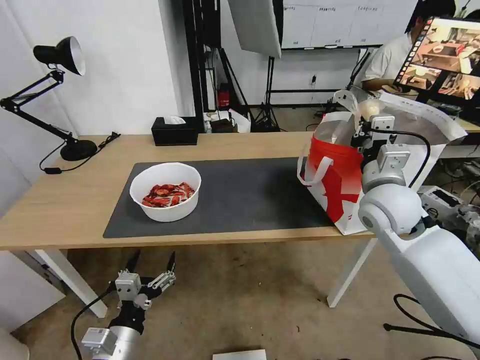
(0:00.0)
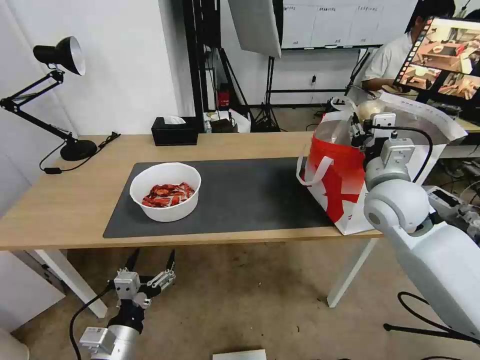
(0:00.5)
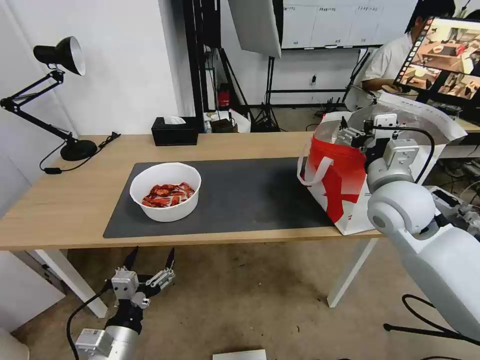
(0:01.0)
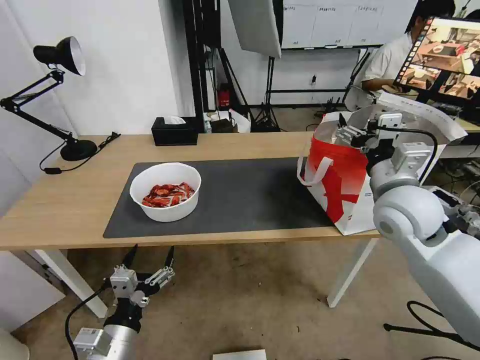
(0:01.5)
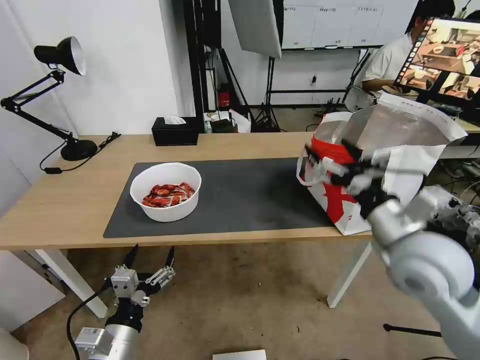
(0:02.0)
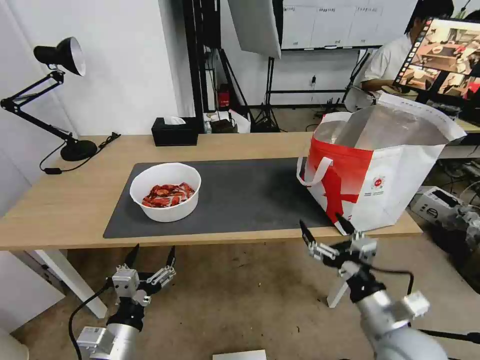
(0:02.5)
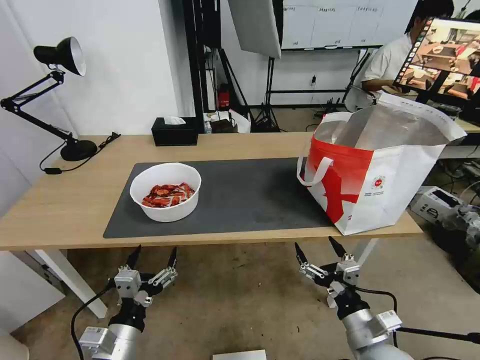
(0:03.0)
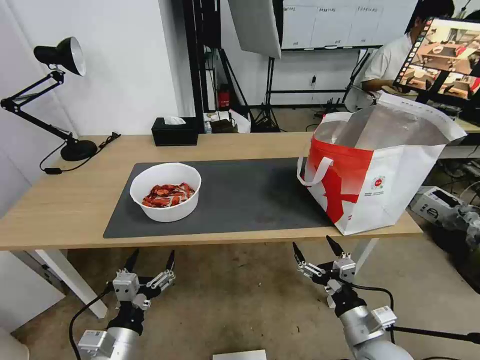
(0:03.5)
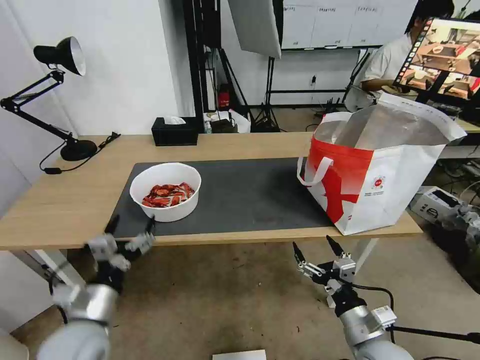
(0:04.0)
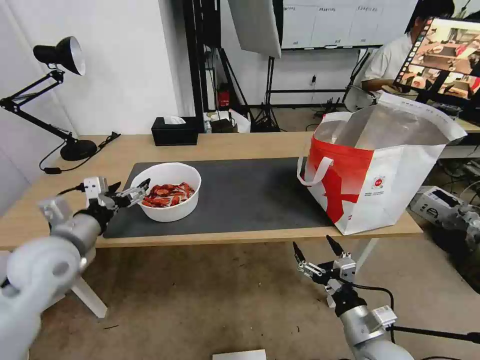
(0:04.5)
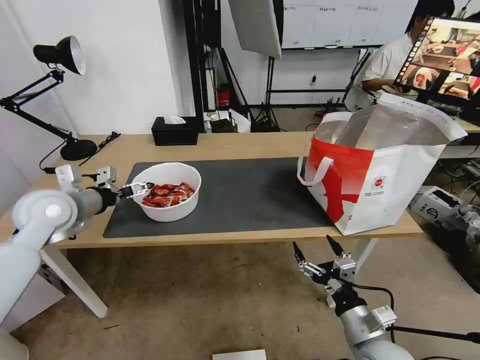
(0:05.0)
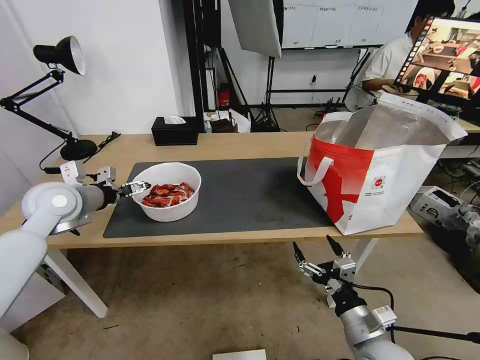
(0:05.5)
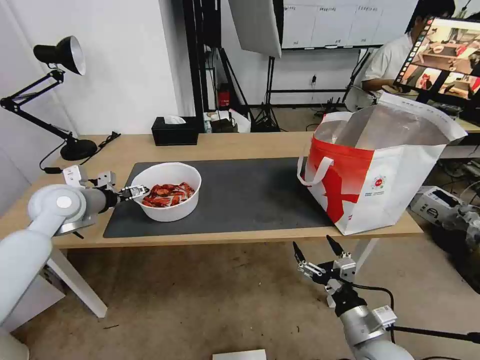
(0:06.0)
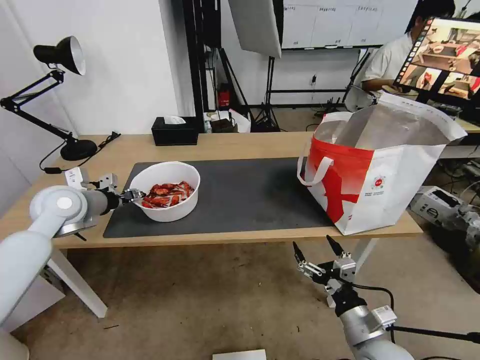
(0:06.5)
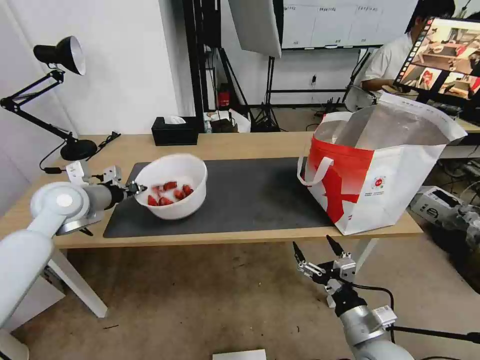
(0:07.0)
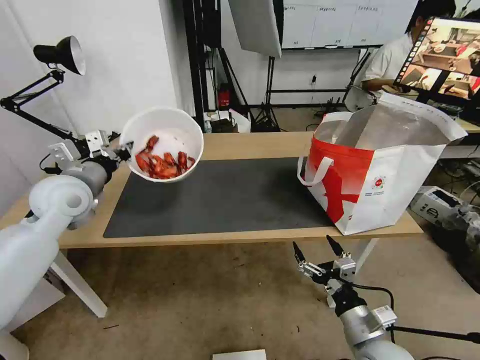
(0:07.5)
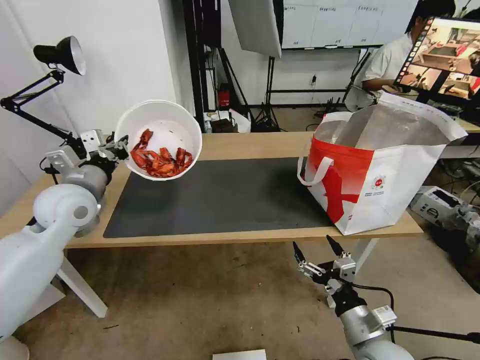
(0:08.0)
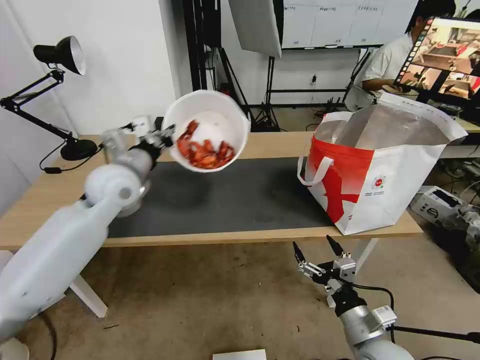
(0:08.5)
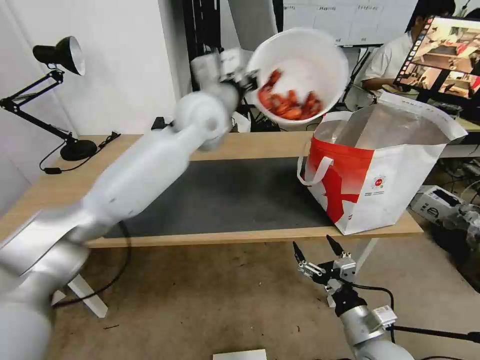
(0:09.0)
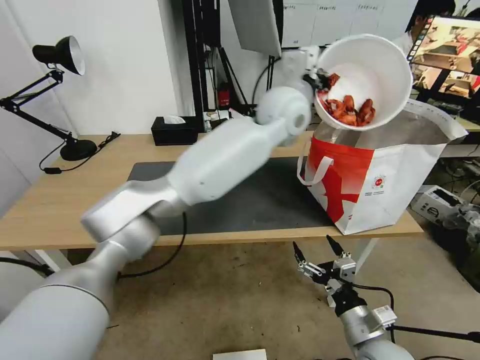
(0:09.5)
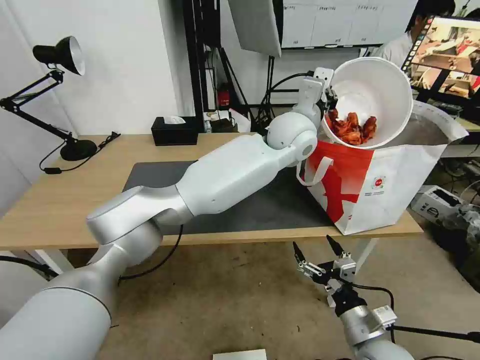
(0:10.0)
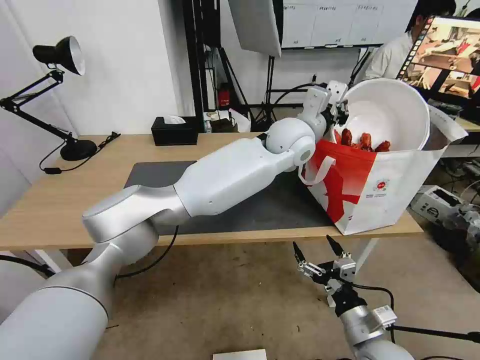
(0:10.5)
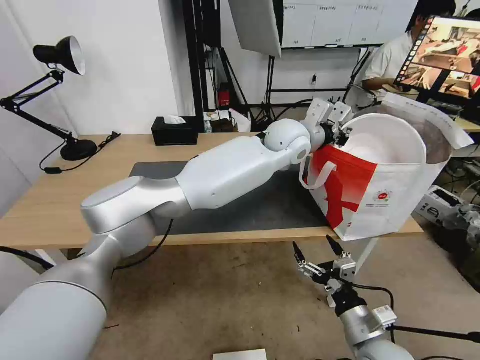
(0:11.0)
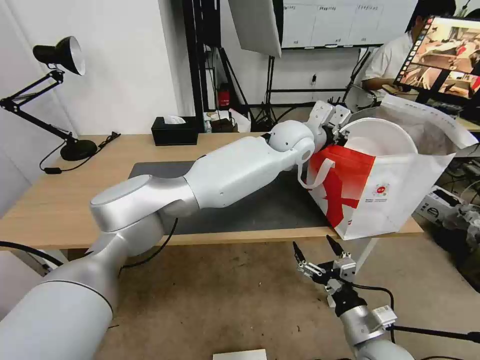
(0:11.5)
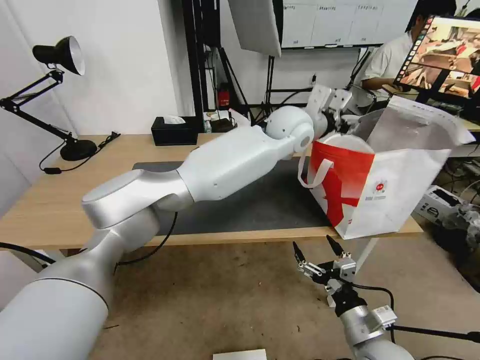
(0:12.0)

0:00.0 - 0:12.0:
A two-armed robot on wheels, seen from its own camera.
Task of the whole recording: Pick up the trash from the table and place it into the takeout bag.
0:00.0 - 0:02.0: The right gripper shifts about 10 cm backward, and opens its fingers.
0:02.0 - 0:04.0: The left gripper heads forward, covering roughly 5 cm; the right gripper goes about 25 cm downward and backward.
0:04.0 - 0:06.0: The left gripper shifts about 30 cm forward, upward and to the left.
0:06.0 - 0:08.0: The left gripper moves about 5 cm, and closes.
0:08.0 - 0:10.0: The left gripper shifts roughly 40 cm to the right.
0:10.0 - 0:12.0: The left gripper opens its fingers.

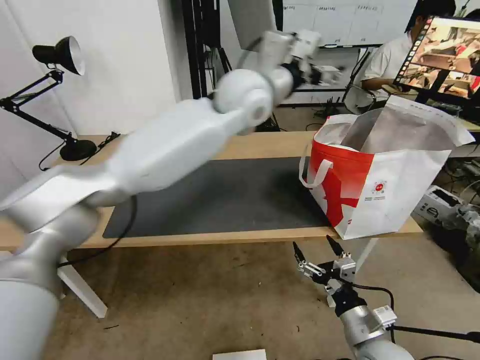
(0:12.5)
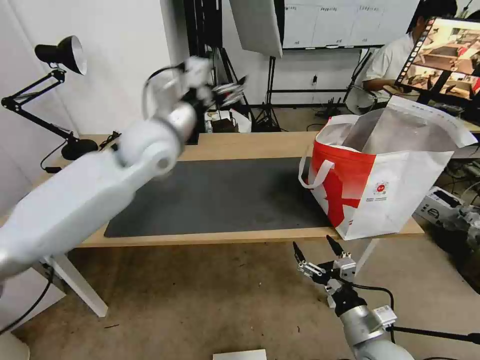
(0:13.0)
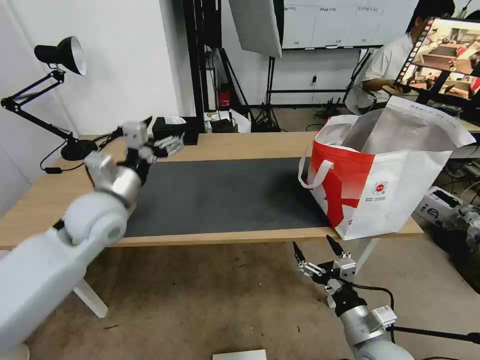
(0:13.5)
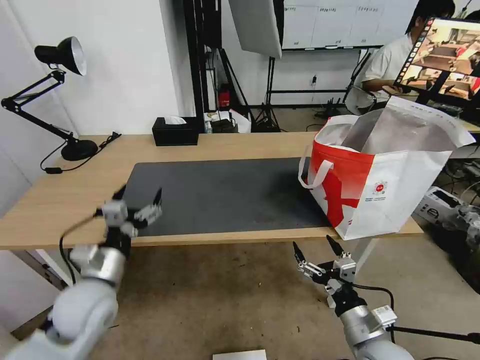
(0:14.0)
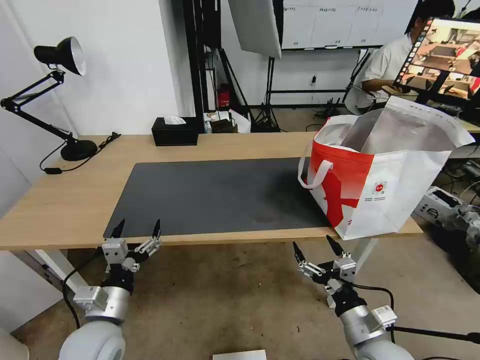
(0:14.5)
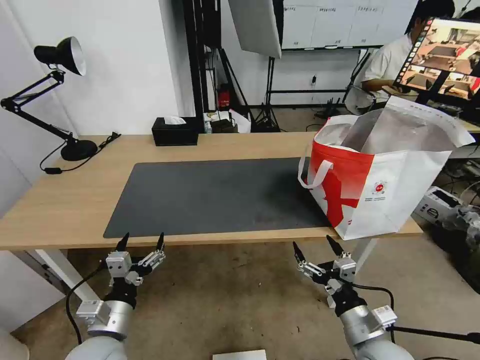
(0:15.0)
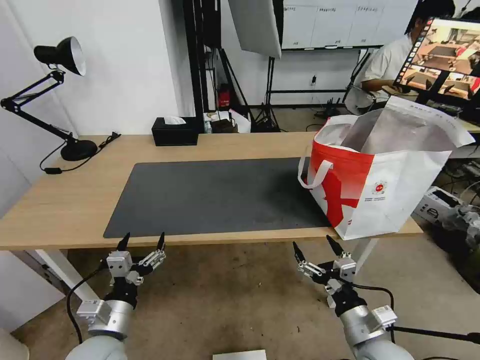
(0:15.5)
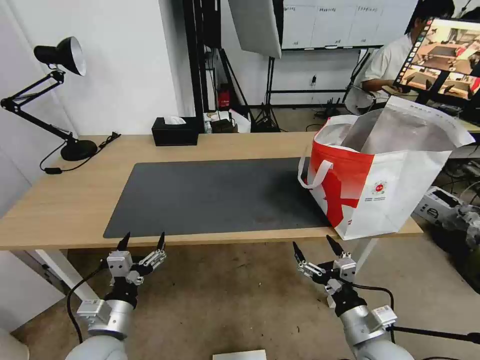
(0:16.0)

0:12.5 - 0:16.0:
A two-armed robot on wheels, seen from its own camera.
Task of the whole recording: Pick up the trash from the table and place it into the takeout bag.
0:12.5 - 0:14.5: The left gripper travels downward, backward and to the left by approximately 50 cm.
0:14.5 - 0:16.0: The grippers stay close to where they were, moving slightly.

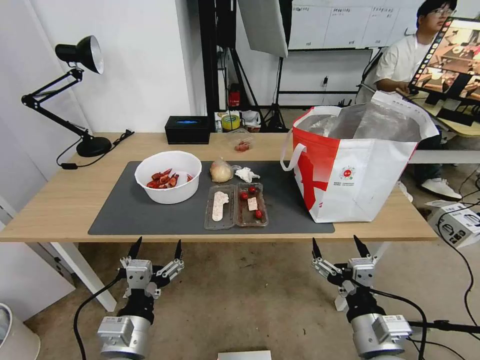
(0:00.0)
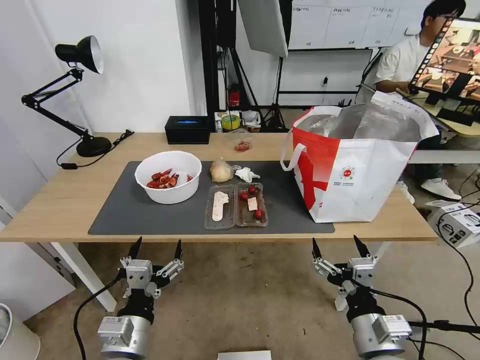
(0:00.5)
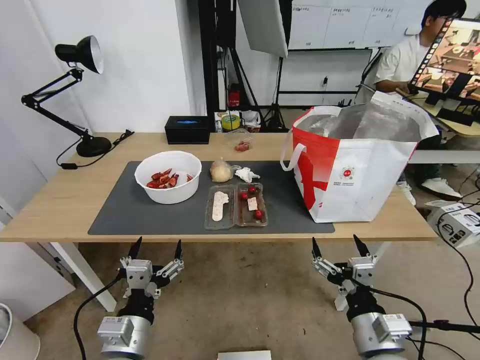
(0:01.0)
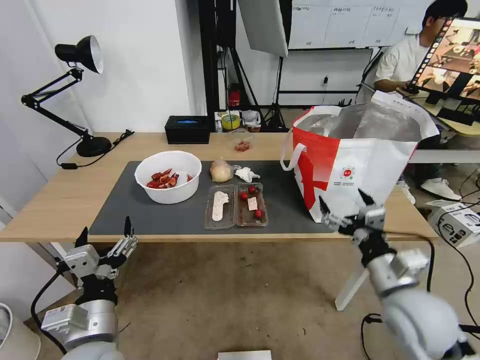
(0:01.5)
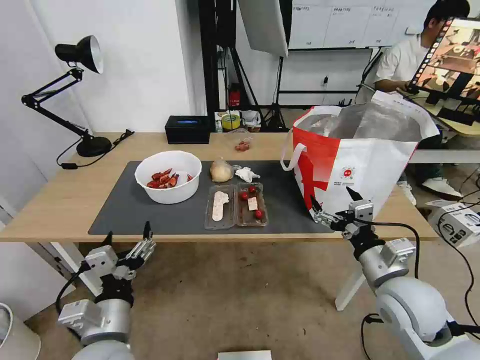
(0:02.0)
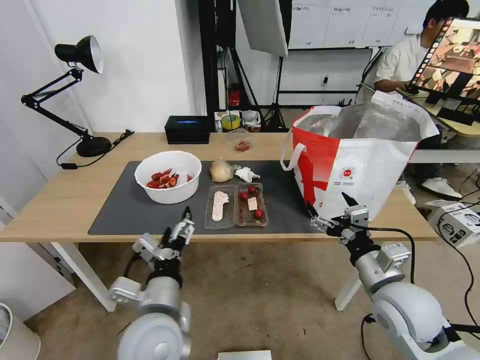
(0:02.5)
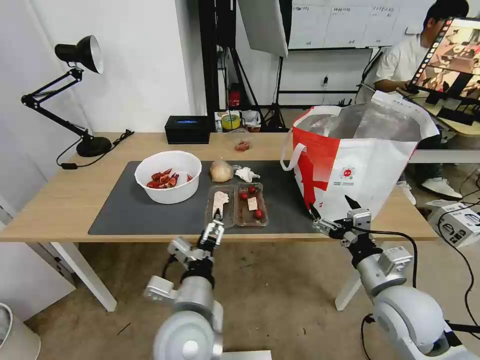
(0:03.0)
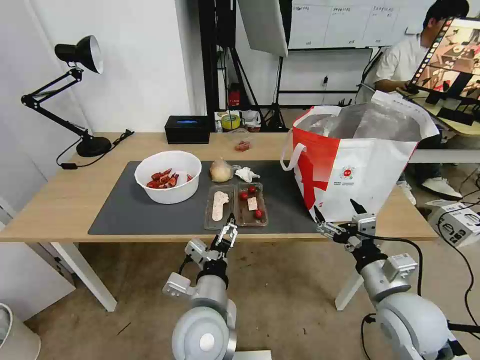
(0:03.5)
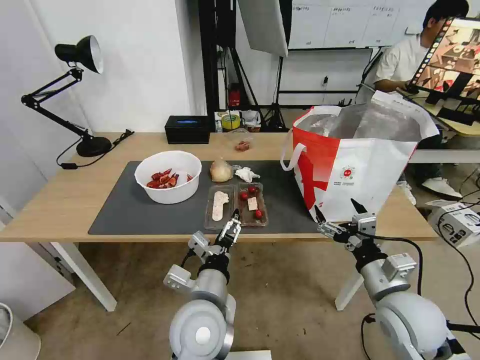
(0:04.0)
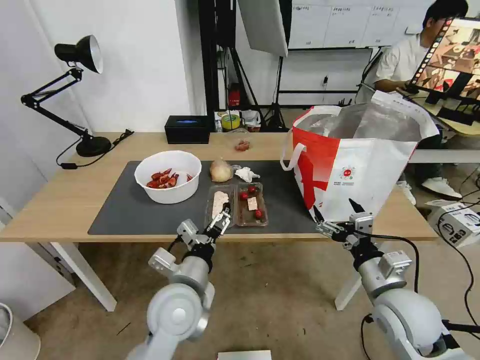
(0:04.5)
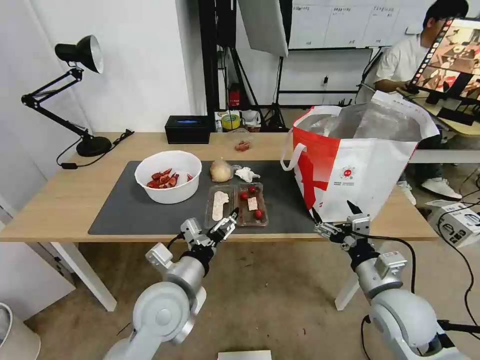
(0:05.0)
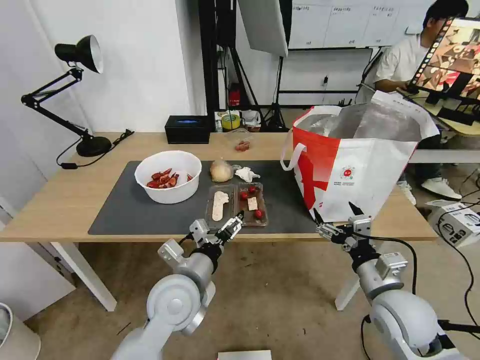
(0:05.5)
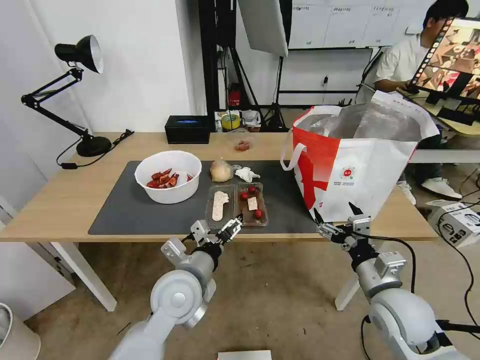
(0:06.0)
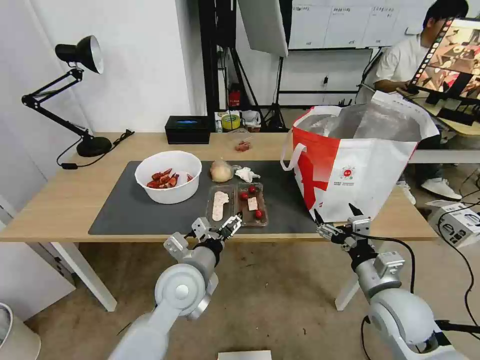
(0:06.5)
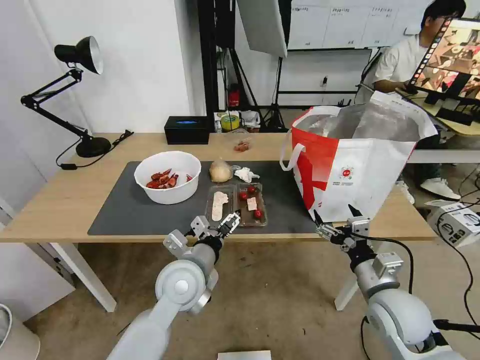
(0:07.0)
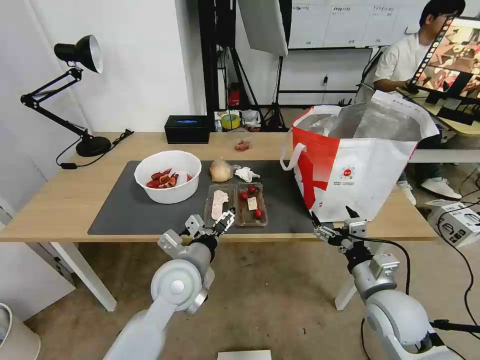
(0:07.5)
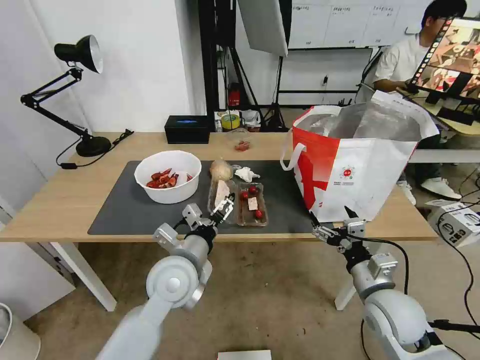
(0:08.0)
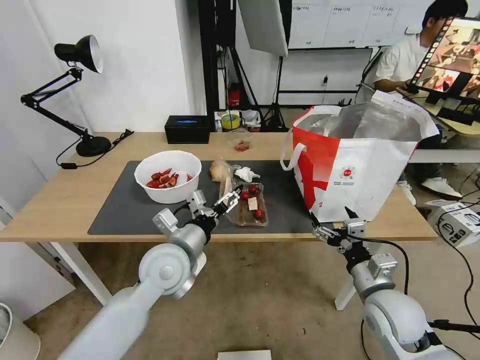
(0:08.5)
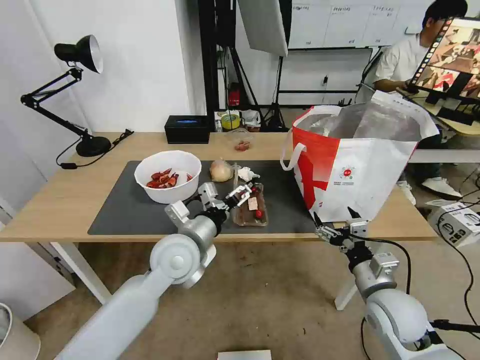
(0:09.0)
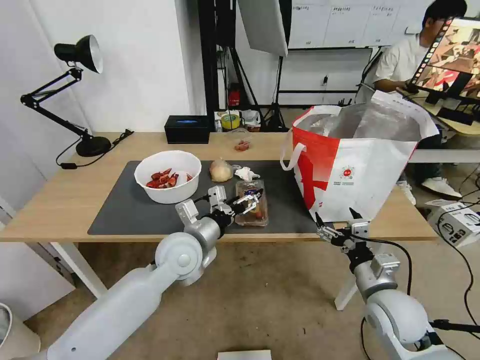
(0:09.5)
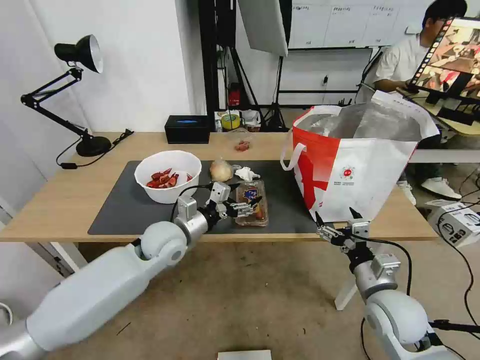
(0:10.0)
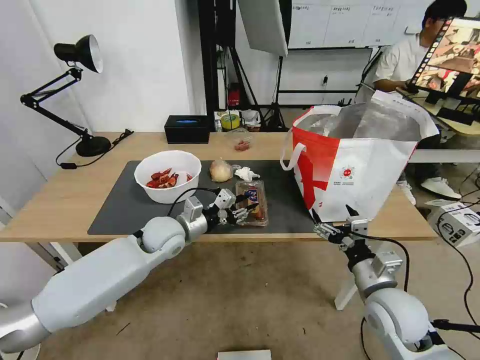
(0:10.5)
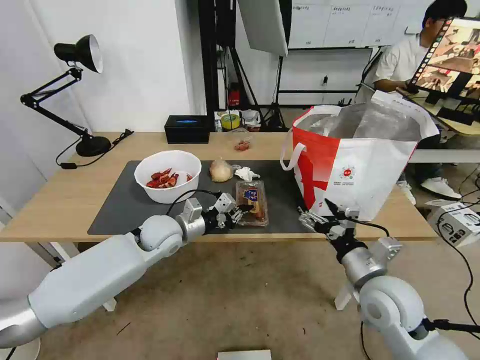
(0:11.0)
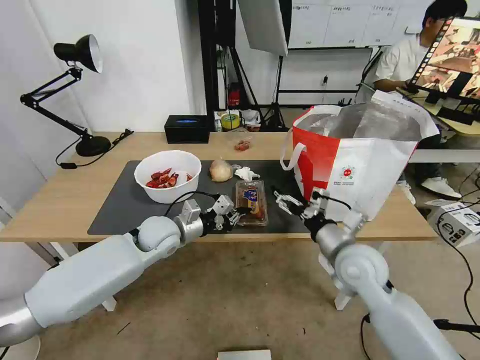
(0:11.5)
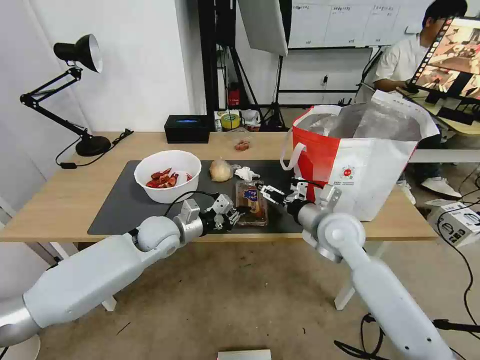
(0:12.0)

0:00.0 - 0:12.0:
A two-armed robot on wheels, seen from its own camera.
Task of the whole recording: Pick up the trash from the table and place it into the takeout bag.
0:02.0 - 0:04.0: The left gripper heads to the right and forward, covering about 15 cm.
0:04.0 - 0:06.0: The left gripper goes some 5 cm forward.
0:06.0 - 0:08.0: There are only small adjustments of the grippers.
0:08.0 - 0:10.0: The left gripper shifts about 10 cm forward.
0:10.0 - 0:12.0: The left gripper closes; the right gripper goes approximately 20 cm forward, to the left and upward.
